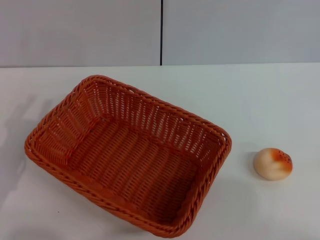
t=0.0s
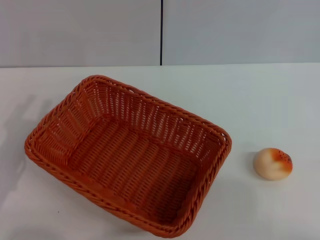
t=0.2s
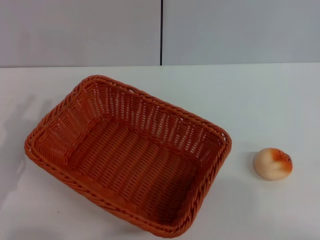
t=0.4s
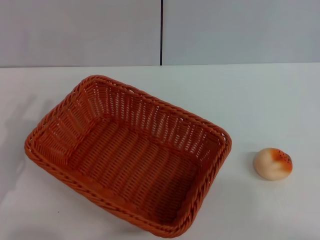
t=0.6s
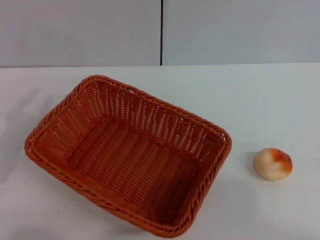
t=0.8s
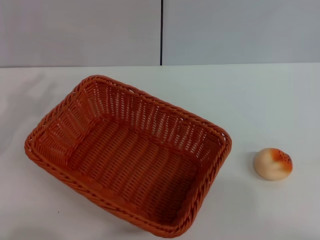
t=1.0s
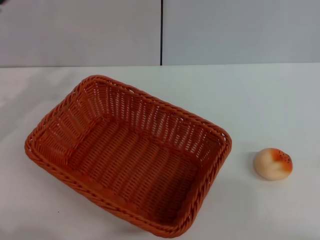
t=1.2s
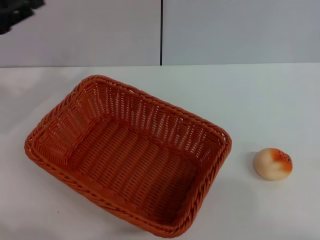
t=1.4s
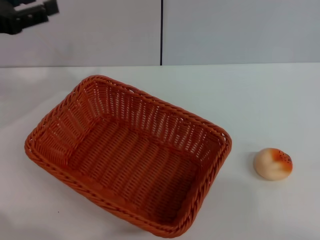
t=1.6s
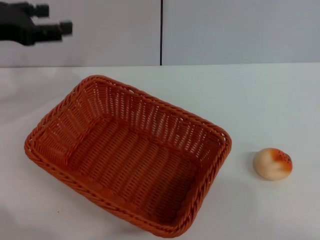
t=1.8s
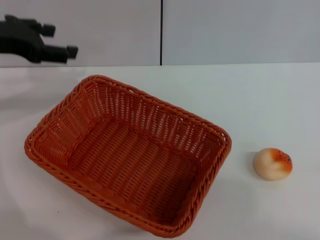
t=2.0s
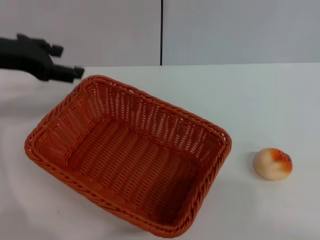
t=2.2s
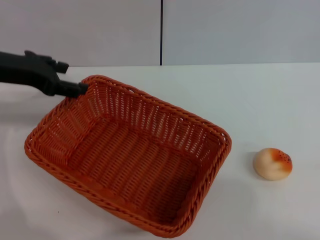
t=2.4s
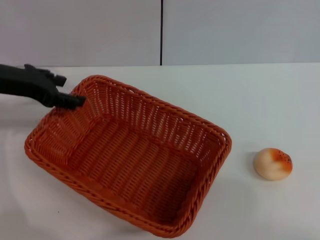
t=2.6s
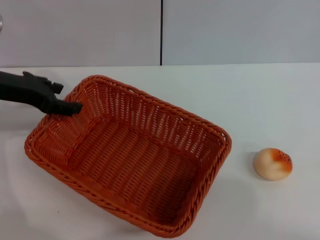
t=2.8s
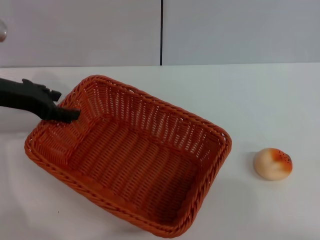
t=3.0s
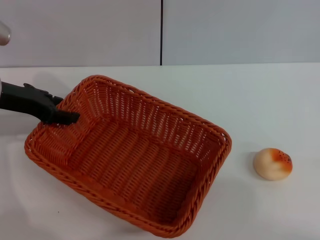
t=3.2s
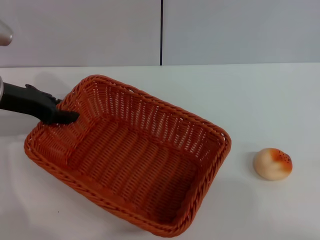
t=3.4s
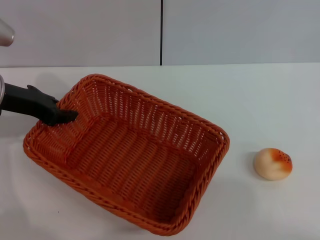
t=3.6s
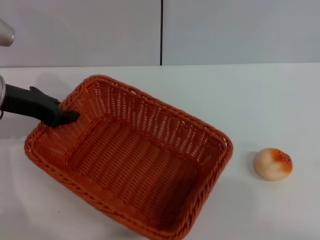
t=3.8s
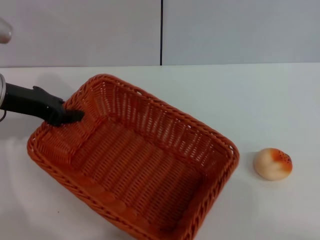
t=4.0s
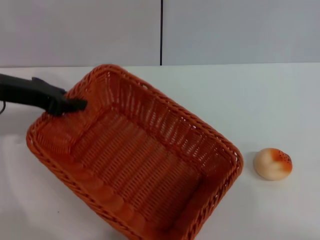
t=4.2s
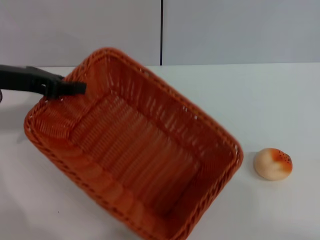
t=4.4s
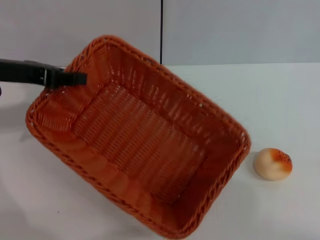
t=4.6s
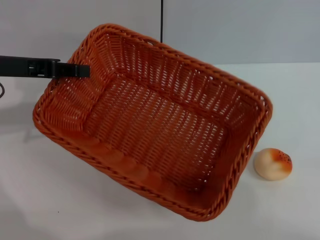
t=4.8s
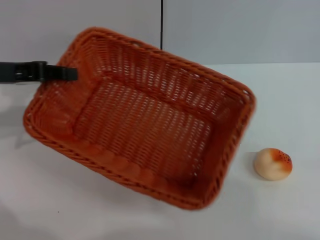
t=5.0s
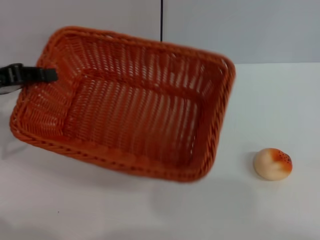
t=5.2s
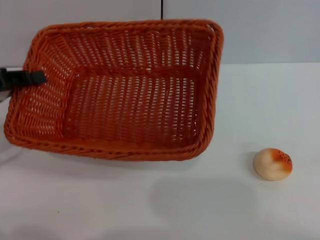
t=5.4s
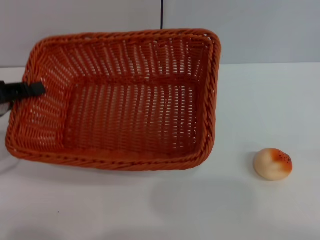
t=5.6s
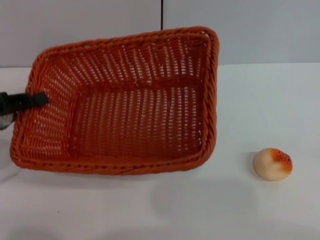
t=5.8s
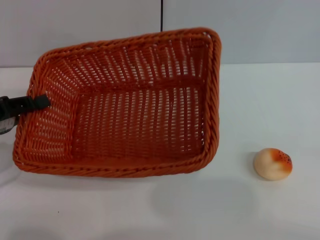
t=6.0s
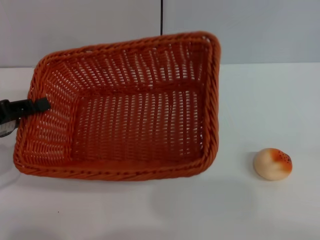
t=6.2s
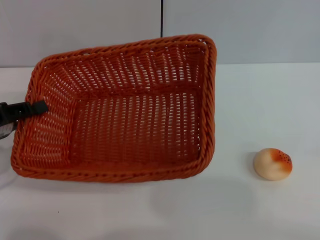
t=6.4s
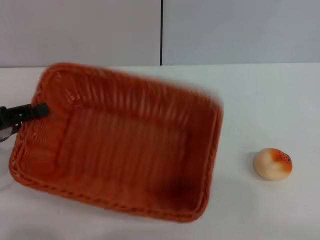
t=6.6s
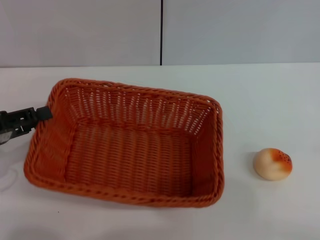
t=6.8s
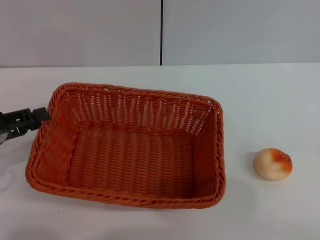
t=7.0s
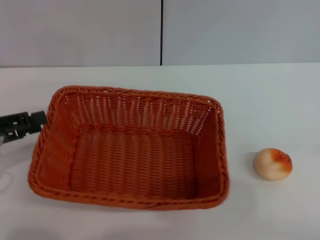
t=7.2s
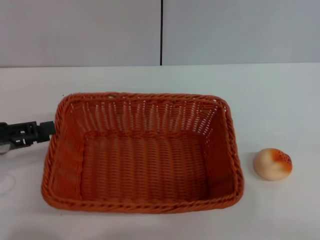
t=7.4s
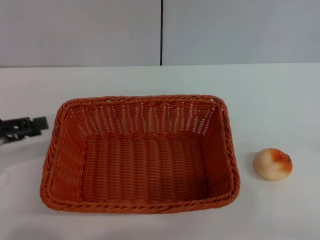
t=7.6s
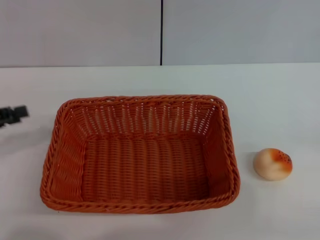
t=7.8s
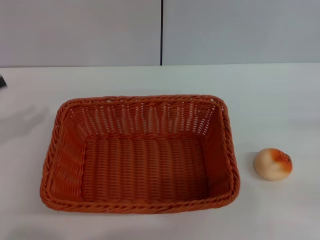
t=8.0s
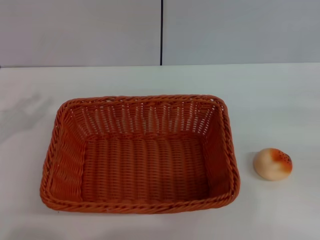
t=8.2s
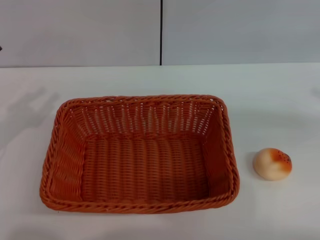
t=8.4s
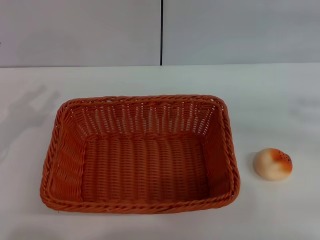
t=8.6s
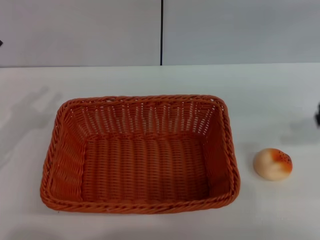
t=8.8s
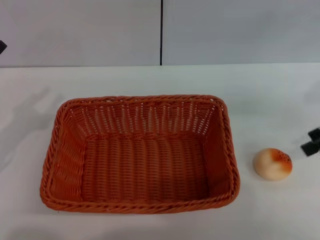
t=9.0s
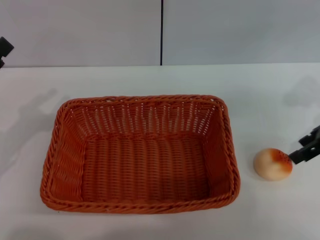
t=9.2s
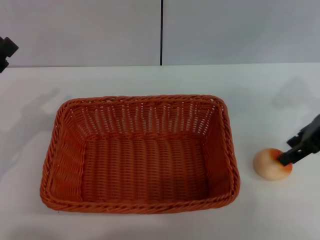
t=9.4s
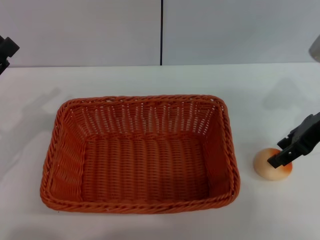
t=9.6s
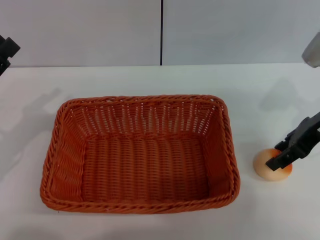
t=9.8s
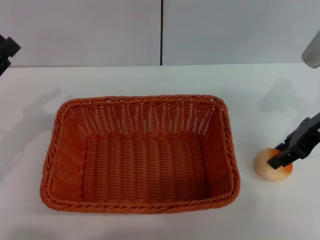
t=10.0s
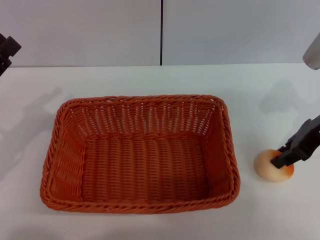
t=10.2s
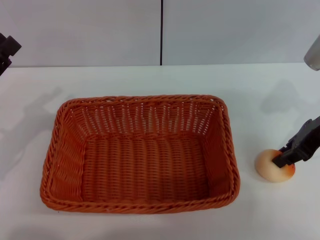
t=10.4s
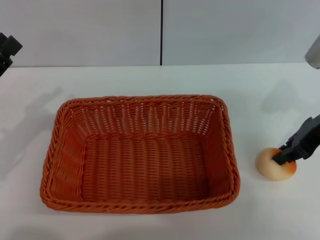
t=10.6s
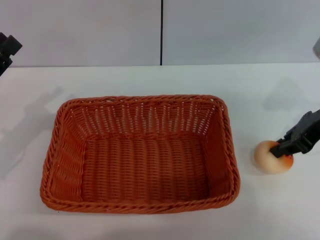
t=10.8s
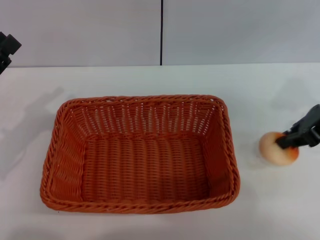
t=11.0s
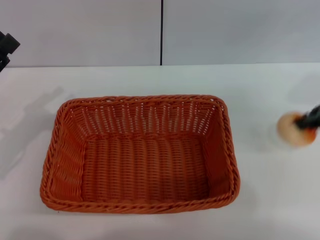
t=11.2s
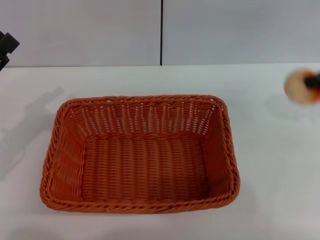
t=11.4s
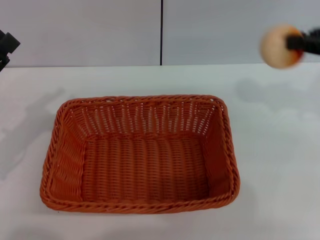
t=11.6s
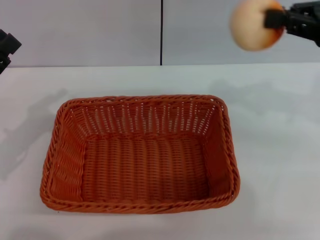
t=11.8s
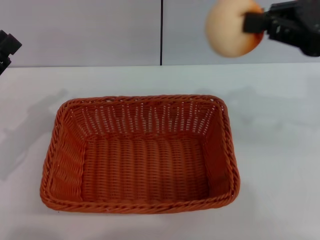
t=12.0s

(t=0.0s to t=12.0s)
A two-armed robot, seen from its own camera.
Step, t=0.0s - t=7.6s: Move the basket to the center of view with the left gripper.
Step, t=7.8s - t=11.0s: Pick up the egg yolk pastry with the right gripper.
t=0.0s - t=1.6s: The left gripper goes approximately 20 cm forward and upward.
t=1.6s - t=3.0s: The left gripper changes place by approximately 5 cm.
t=3.0s - t=4.4s: The left gripper closes.
t=4.4s - t=6.0s: The left gripper moves backward, downward and to the left, some 15 cm.
t=6.0s - t=7.6s: The left gripper opens.
t=7.6s - t=9.0s: The right gripper is displaced forward, upward and to the left by some 20 cm.
t=9.0s - t=10.4s: The right gripper shifts approximately 5 cm to the left, and closes its fingers.
t=10.4s - t=12.0s: The right gripper goes about 10 cm upward.

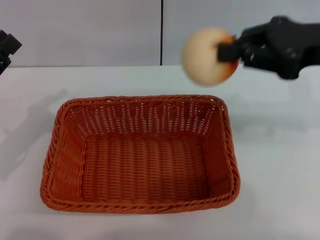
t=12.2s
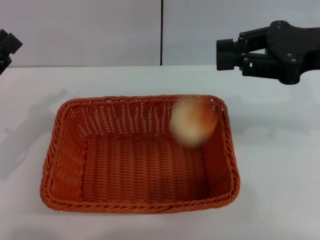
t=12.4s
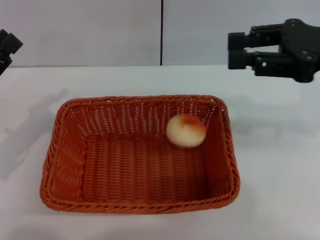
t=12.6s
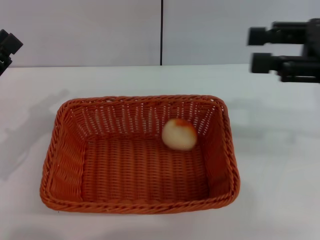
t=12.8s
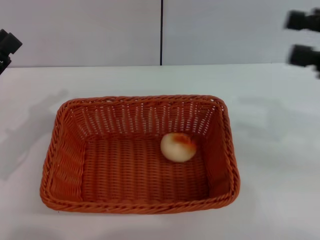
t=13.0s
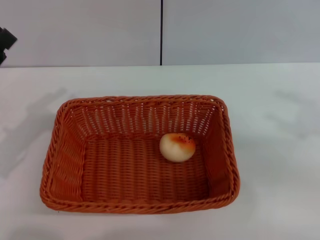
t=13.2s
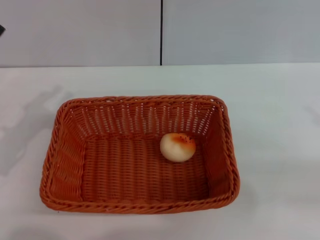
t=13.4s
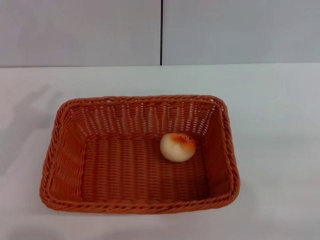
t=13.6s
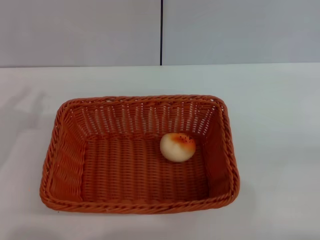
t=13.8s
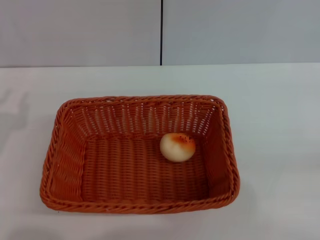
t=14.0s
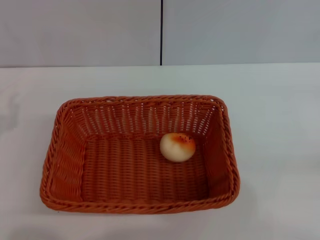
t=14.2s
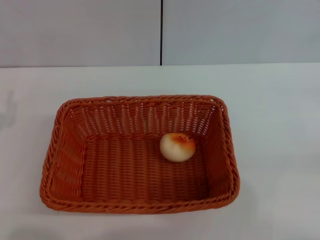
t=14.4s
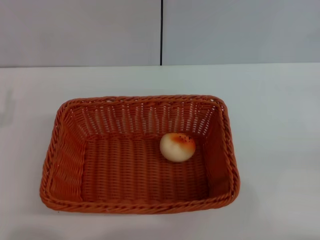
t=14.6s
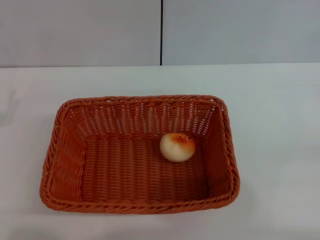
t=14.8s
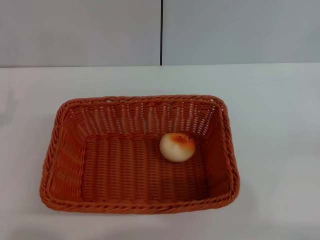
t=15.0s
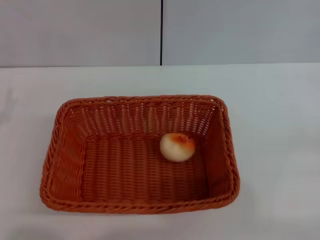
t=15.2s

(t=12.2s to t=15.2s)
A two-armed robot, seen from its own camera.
t=12.2s - t=13.8s: The right gripper goes roughly 25 cm to the right, backward and downward, and opens its fingers.

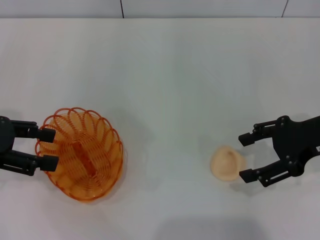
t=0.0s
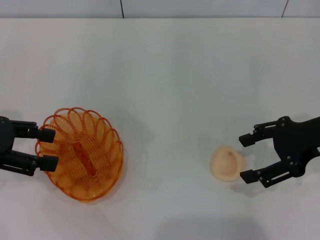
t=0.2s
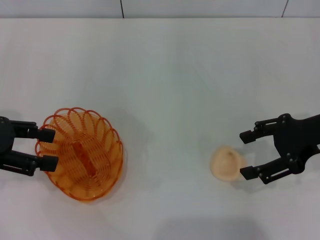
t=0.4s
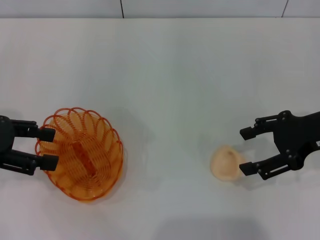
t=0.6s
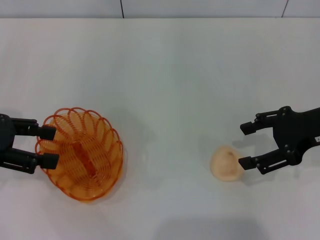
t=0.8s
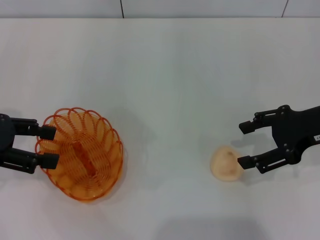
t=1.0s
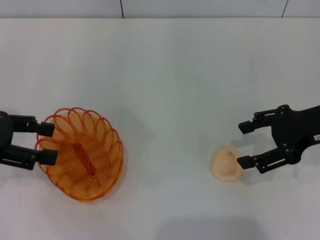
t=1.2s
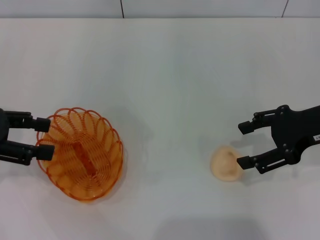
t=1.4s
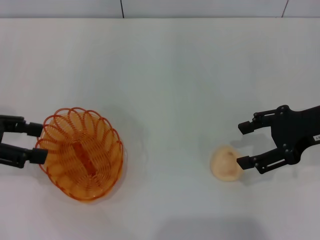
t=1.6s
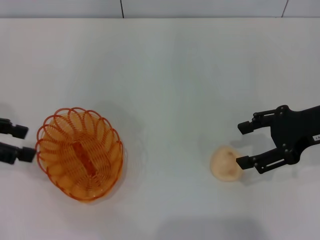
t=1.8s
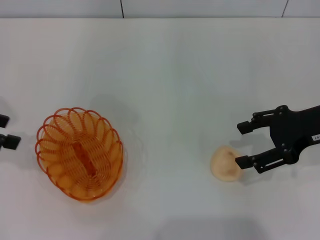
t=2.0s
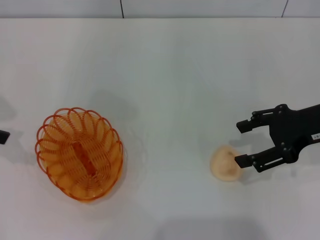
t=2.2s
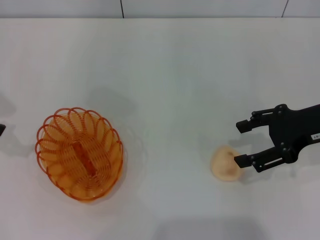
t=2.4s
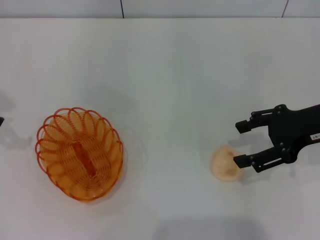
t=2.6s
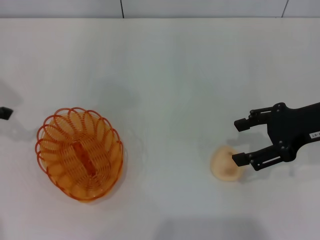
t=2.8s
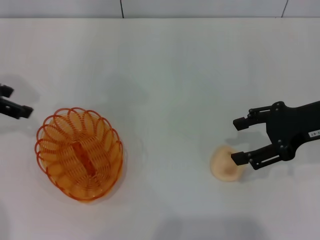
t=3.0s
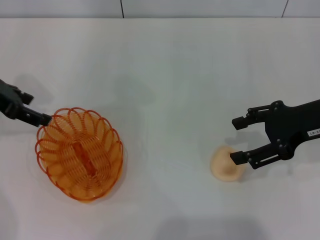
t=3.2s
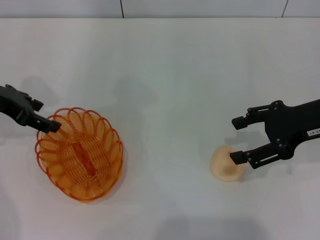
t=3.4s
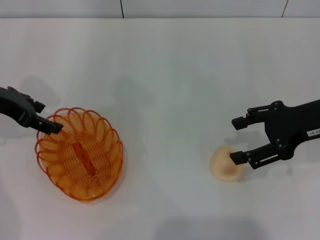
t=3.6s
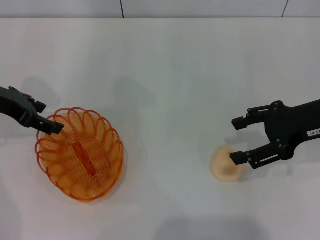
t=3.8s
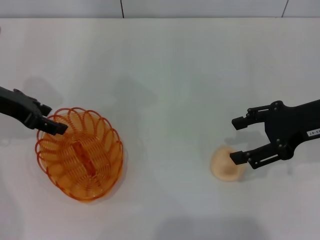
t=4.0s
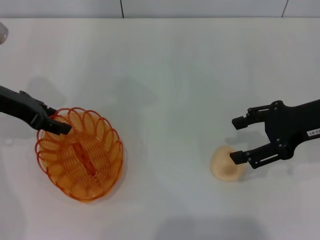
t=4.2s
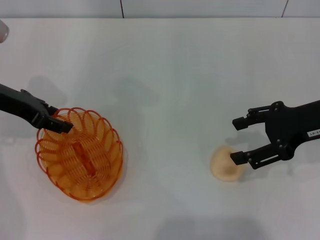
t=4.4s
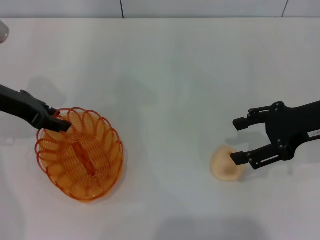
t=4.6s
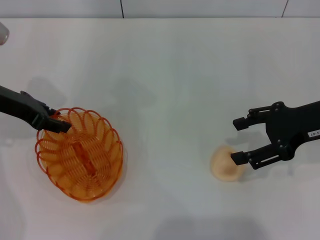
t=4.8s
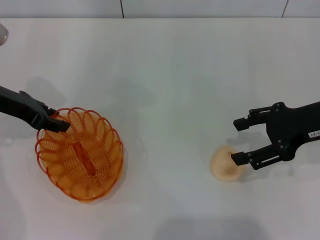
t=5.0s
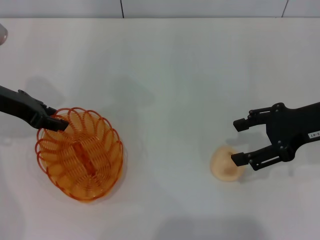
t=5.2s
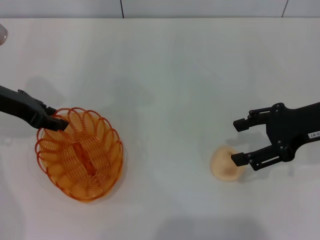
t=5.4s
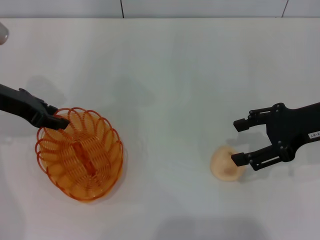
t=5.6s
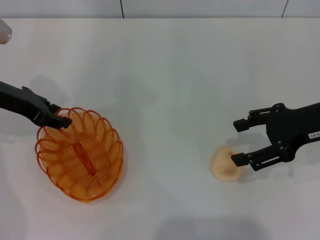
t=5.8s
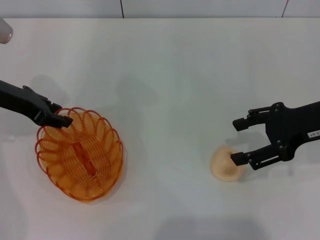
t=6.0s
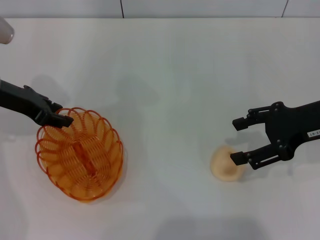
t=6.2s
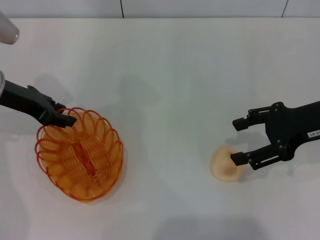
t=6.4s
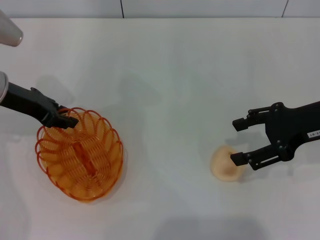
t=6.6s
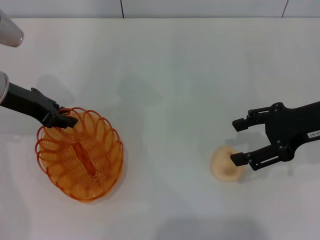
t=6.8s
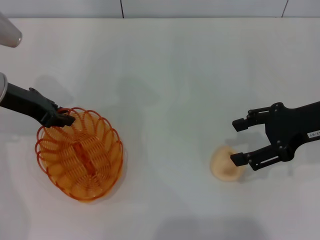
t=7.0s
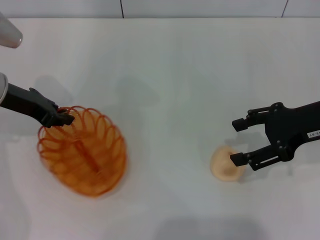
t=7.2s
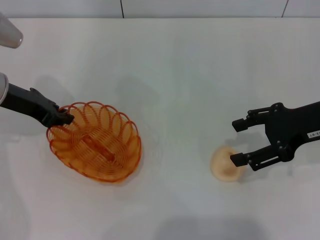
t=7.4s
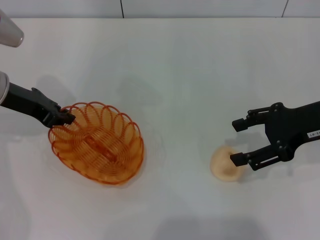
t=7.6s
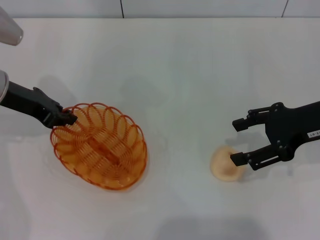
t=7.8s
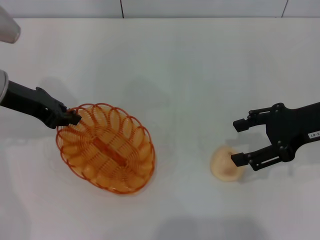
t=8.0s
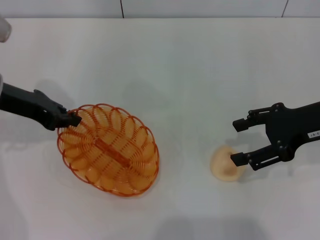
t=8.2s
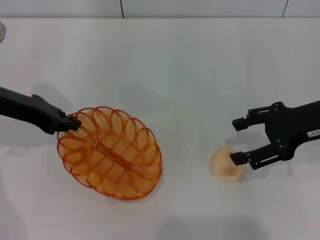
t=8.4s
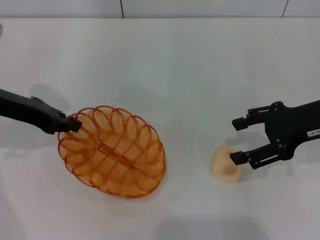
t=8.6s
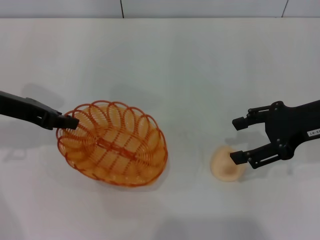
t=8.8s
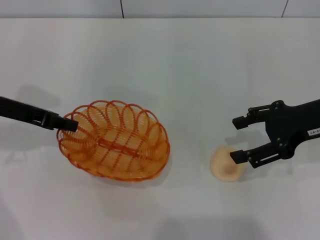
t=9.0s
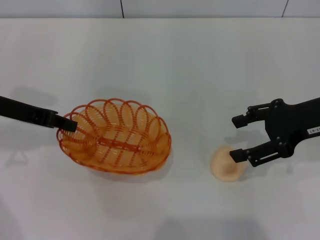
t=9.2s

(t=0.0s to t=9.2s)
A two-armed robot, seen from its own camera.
t=0.0s - t=1.6s: Both grippers stay put.
t=1.6s - t=3.0s: The left gripper heads forward, covering approximately 10 cm.
t=3.0s - t=4.6s: The left gripper moves to the right, approximately 5 cm.
t=4.6s - t=6.2s: Both grippers stay put.
t=6.2s - t=7.6s: The left gripper closes up.
